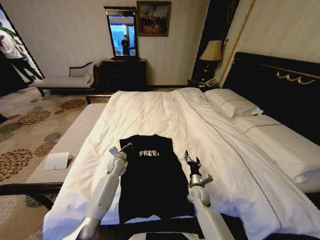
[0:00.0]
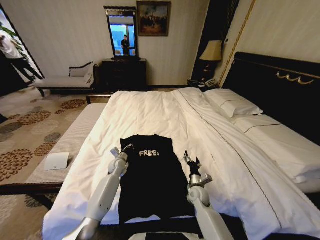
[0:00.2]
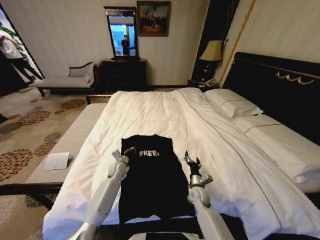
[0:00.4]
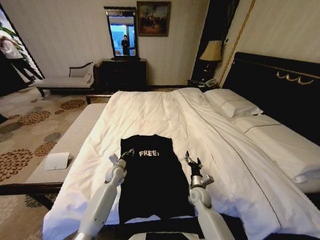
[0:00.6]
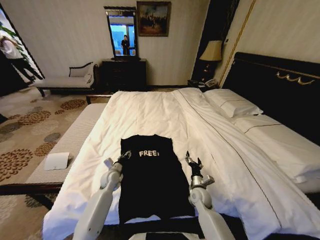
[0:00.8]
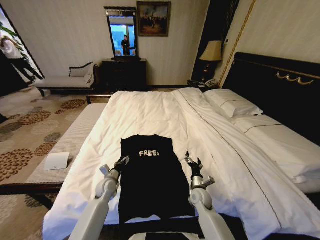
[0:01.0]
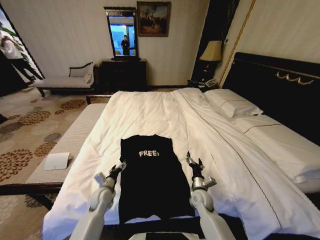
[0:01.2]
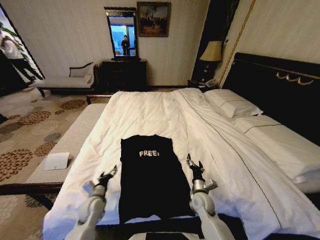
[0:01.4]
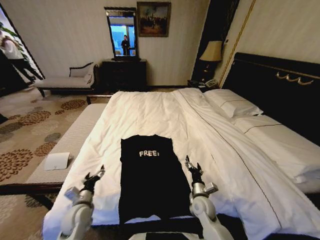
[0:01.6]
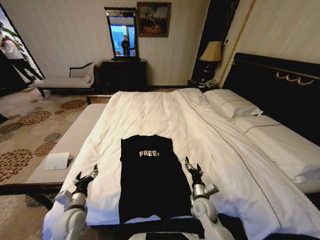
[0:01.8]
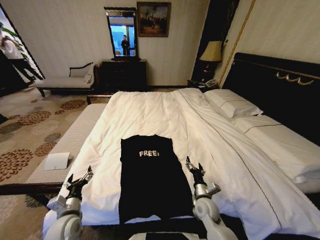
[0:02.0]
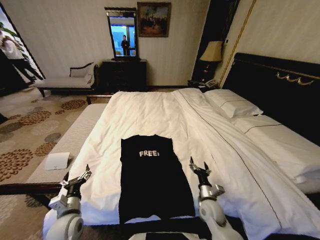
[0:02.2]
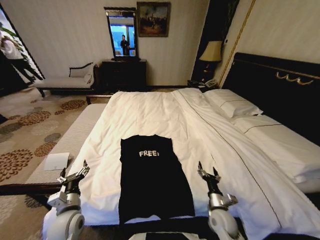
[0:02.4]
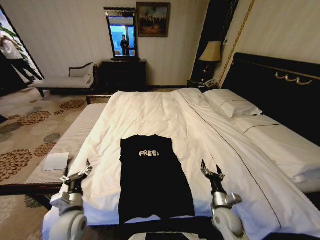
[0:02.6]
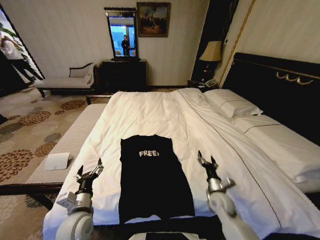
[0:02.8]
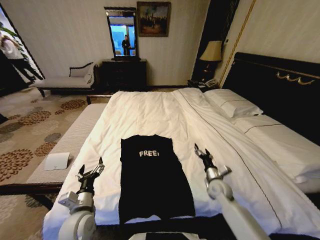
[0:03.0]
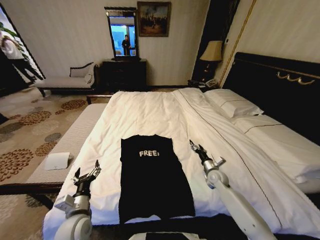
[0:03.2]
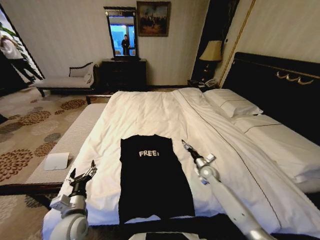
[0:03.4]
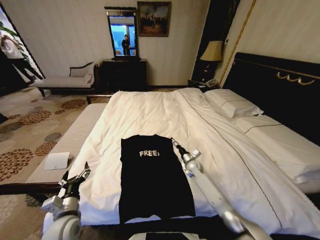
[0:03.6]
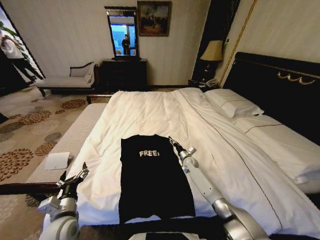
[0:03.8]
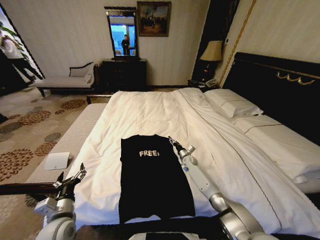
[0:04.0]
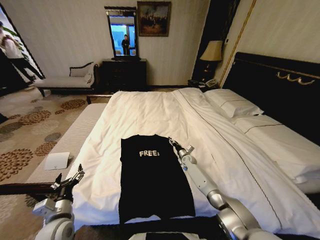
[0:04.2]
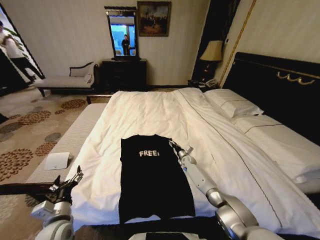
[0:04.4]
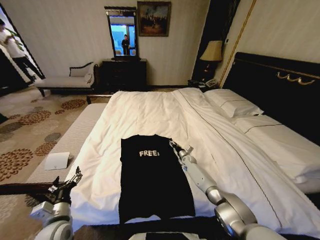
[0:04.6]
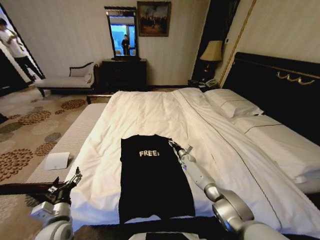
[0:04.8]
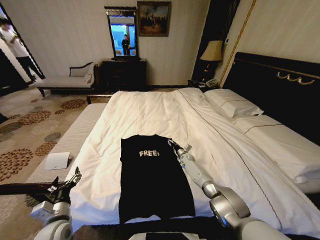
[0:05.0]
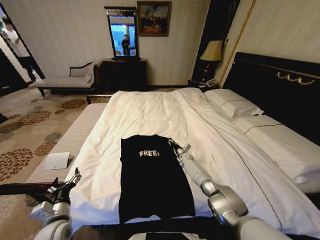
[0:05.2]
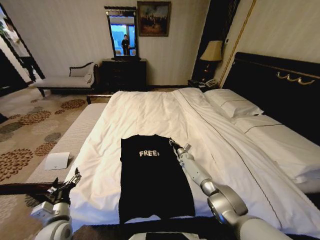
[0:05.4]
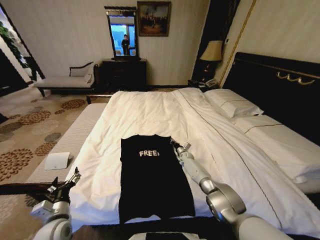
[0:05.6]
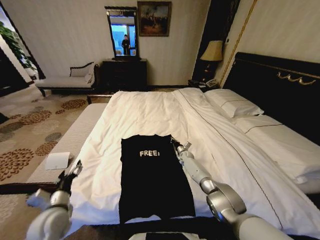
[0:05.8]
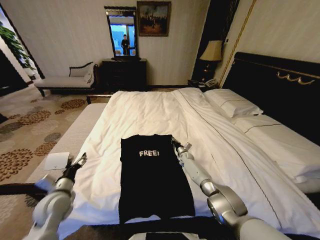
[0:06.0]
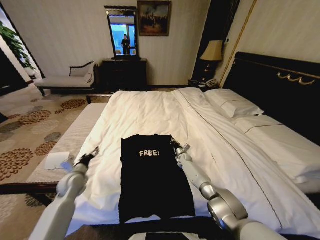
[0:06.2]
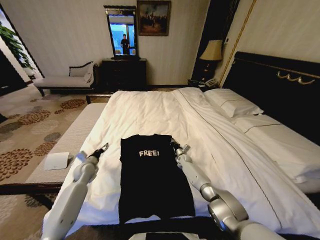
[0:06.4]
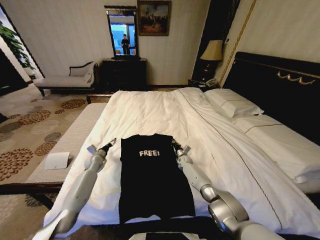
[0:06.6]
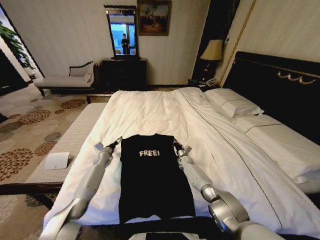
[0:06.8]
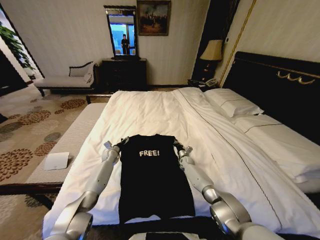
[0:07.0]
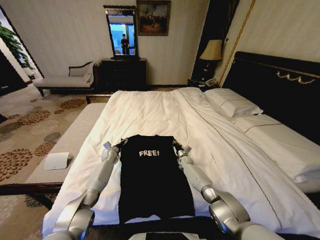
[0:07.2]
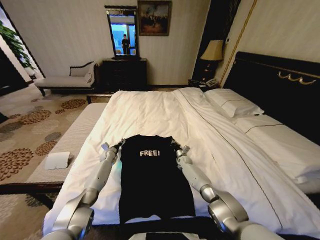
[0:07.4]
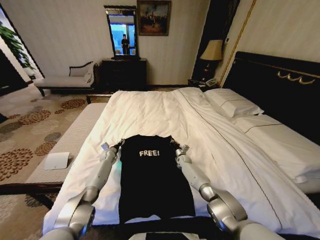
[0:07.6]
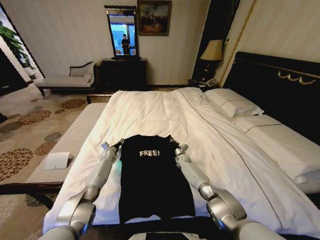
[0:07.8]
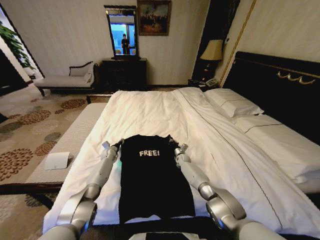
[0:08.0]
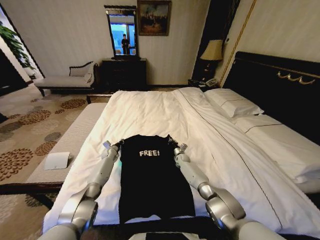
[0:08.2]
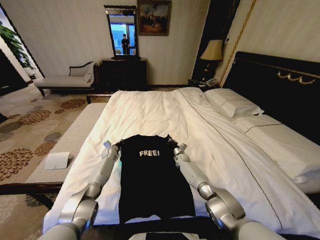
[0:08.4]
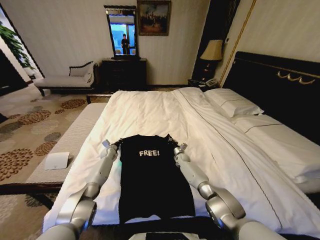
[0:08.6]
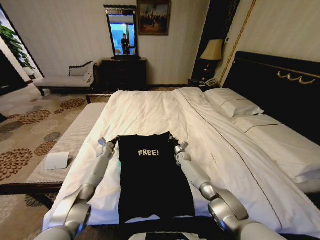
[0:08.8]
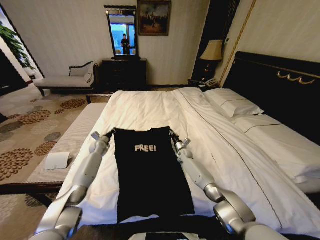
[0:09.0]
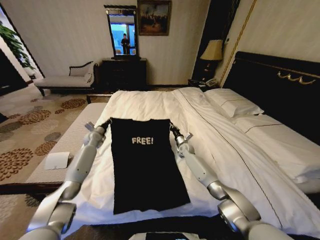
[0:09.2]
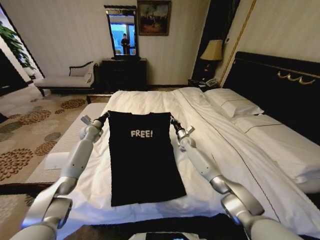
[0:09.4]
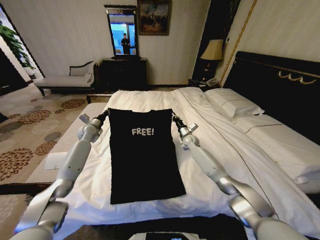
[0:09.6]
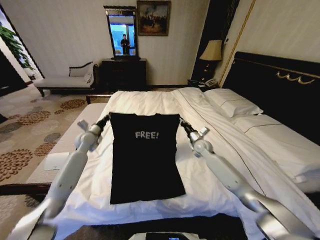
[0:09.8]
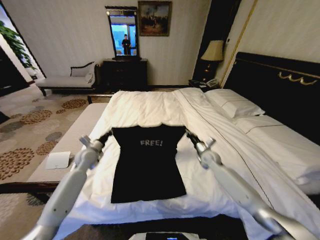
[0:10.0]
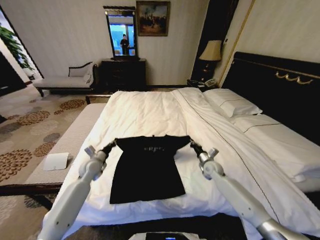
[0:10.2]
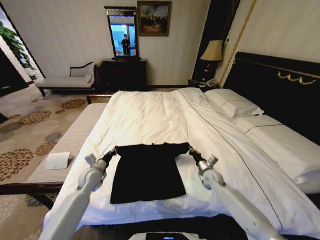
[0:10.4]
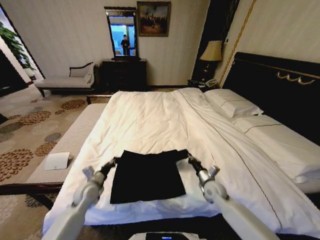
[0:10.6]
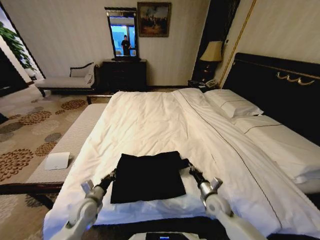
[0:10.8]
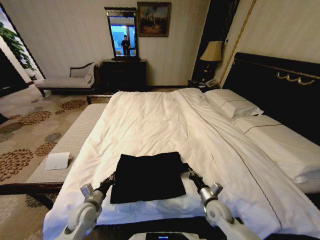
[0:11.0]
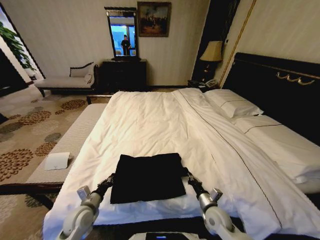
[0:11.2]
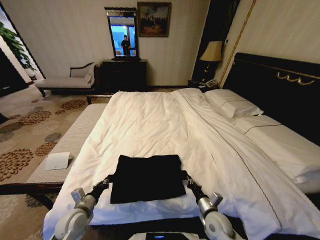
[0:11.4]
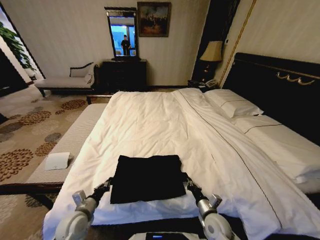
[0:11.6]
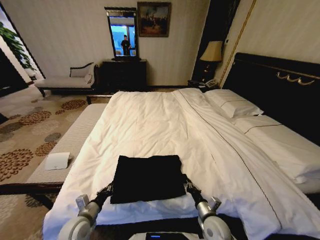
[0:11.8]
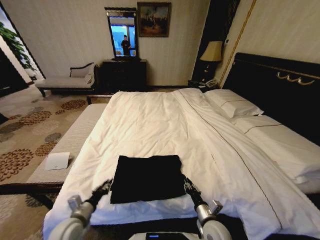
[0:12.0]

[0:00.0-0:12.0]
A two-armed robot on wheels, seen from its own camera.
Task of the whole recording: Fold the clothes on the bed.
0:00.0 to 0:01.6: The right gripper shifts approximately 5 cm backward. Meanwhile the left gripper travels backward by approximately 25 cm, and opens.
0:01.6 to 0:03.0: The right gripper moves to the right and forward, about 15 cm; the left gripper travels upward by approximately 5 cm.
0:03.0 to 0:04.4: The right gripper is displaced forward and downward by approximately 20 cm, and closes up, while the left gripper heads to the left, covering about 5 cm.
0:04.4 to 0:06.0: The right gripper closes, while the left gripper shifts roughly 10 cm forward.
0:06.0 to 0:07.6: The left gripper goes roughly 35 cm forward and downward.
0:07.6 to 0:09.0: The left gripper travels upward by roughly 10 cm, and closes up. Meanwhile the right gripper shifts some 5 cm upward.
0:09.0 to 0:10.4: The left gripper travels backward by roughly 20 cm, while the right gripper shifts approximately 20 cm backward and to the right.
0:10.4 to 0:12.0: Both grippers move backward, about 20 cm.

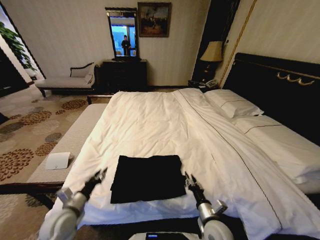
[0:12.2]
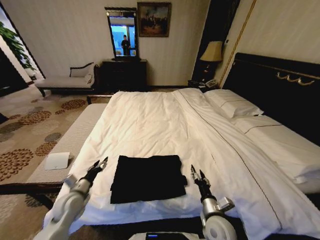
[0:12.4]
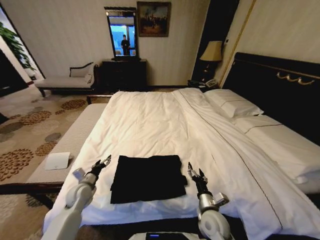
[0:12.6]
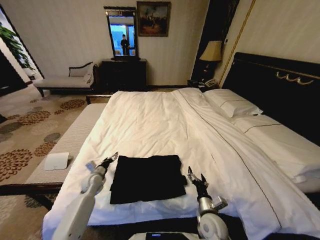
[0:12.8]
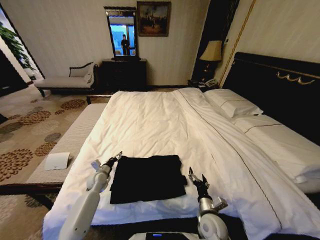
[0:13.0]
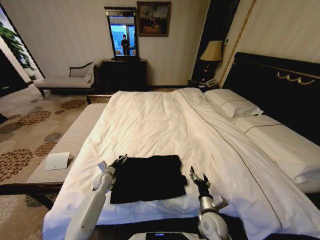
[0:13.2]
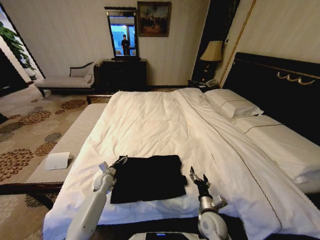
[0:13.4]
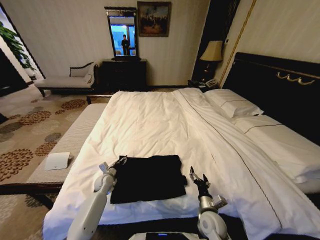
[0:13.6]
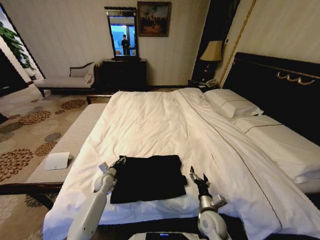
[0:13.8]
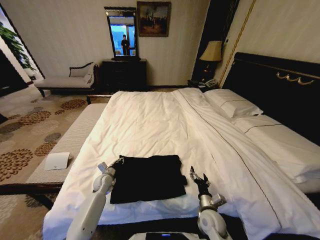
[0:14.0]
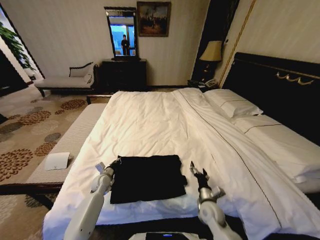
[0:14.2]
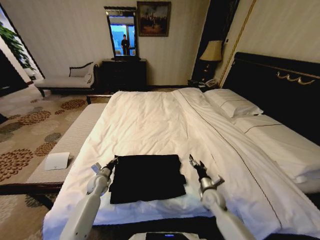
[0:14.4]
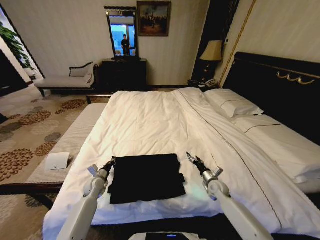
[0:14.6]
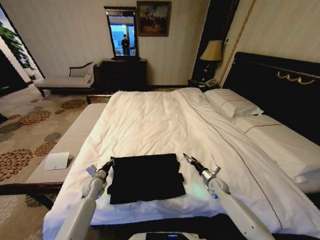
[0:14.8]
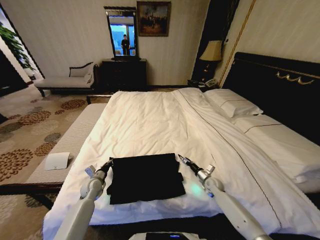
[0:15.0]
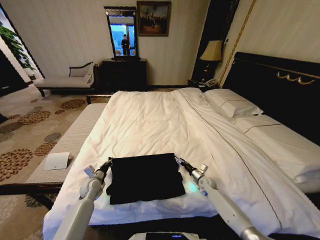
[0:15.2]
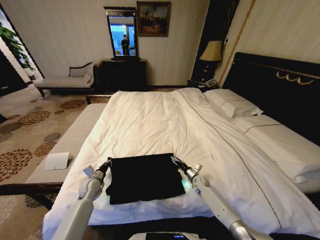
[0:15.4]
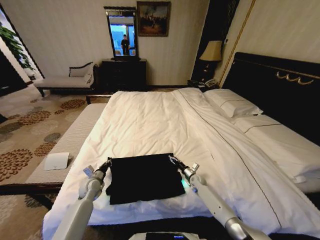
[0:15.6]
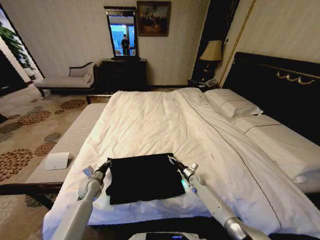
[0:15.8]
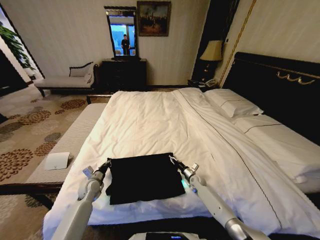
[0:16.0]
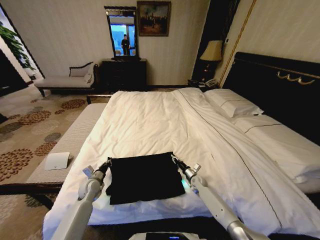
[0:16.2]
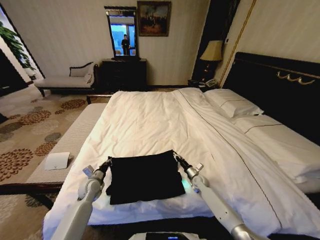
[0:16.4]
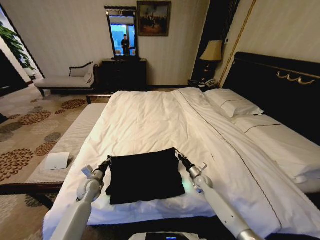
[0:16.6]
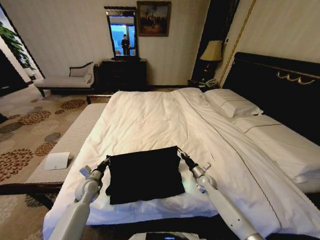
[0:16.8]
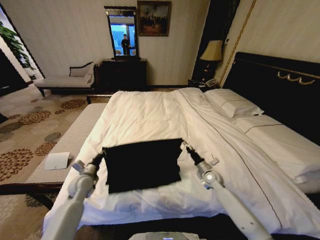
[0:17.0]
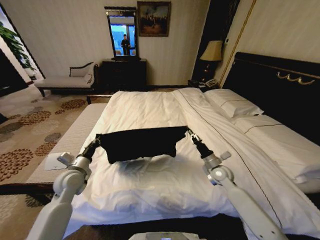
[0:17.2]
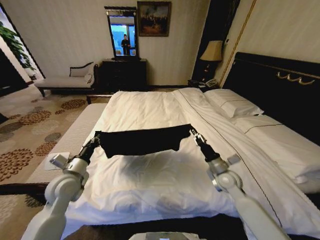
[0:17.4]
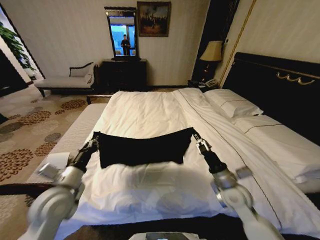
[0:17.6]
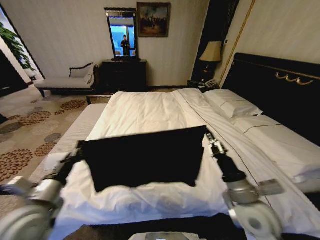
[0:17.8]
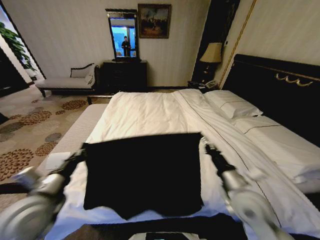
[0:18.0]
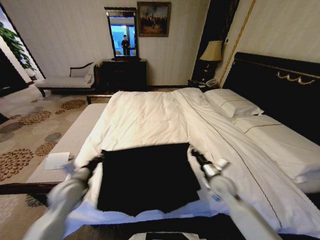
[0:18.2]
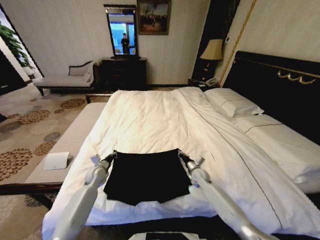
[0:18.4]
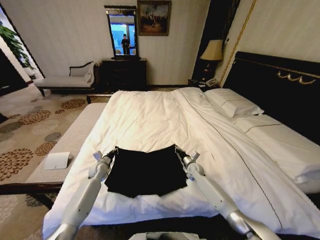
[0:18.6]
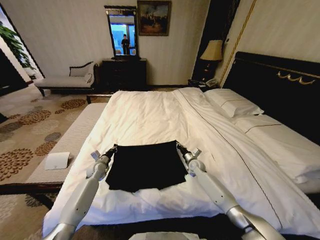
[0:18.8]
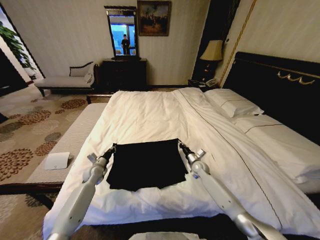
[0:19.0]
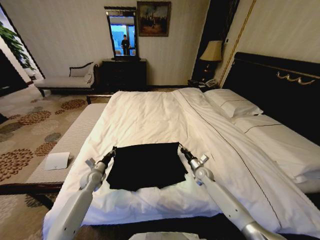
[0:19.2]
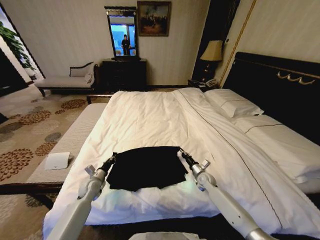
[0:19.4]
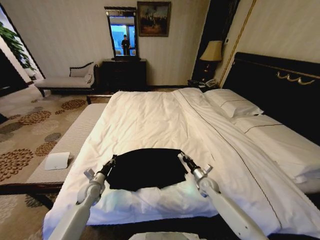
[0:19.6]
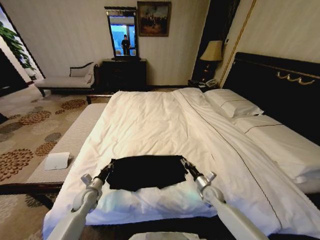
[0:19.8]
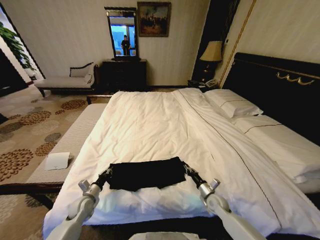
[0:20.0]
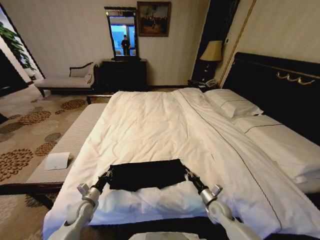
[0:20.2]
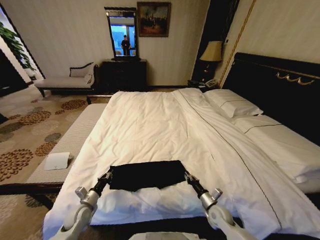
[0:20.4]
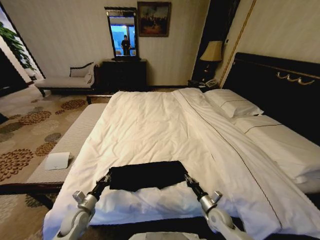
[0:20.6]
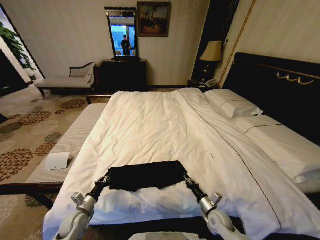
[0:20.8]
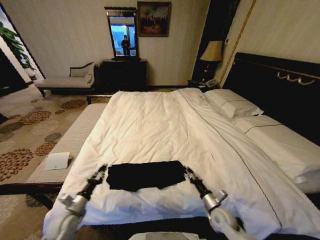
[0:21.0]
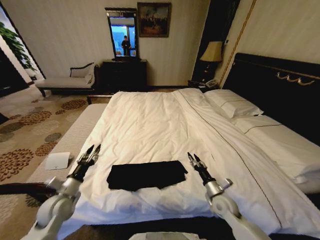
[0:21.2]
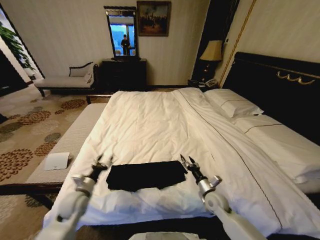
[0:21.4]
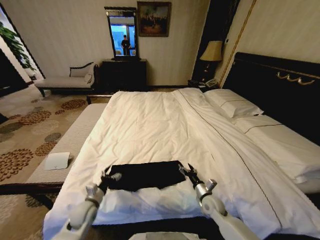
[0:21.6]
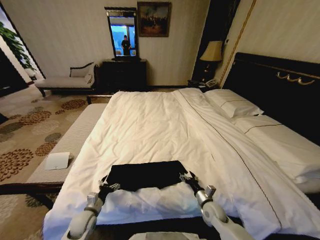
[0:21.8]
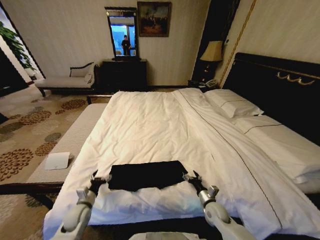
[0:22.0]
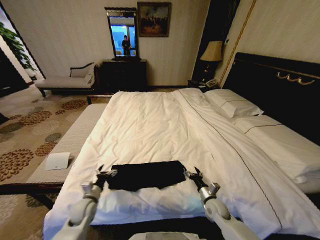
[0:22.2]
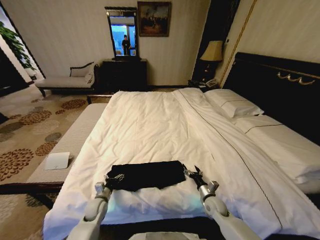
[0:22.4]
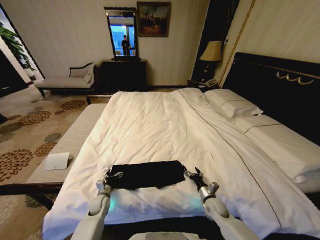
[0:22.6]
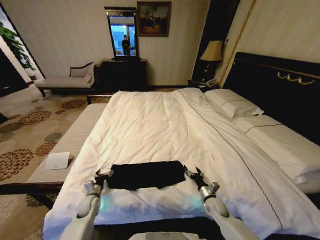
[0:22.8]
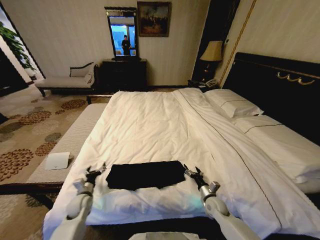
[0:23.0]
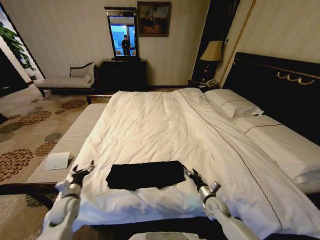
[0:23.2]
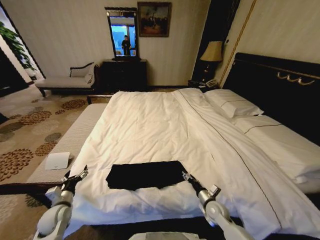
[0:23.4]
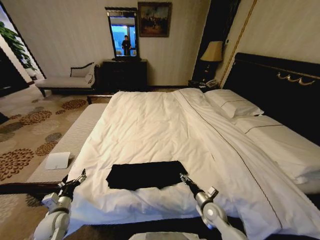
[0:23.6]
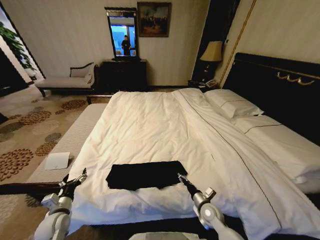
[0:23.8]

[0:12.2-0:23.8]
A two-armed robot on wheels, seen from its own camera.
Task of the whole recording: Fold the clothes on the bed.
0:12.2 to 0:13.6: The right gripper opens up. The left gripper shifts some 25 cm forward and downward.
0:13.6 to 0:15.0: The left gripper moves roughly 5 cm, and closes its fingers. The right gripper goes about 20 cm forward and to the right.
0:15.0 to 0:16.6: The right gripper moves to the left, some 5 cm, and closes its fingers.
0:16.6 to 0:18.0: Both grippers travel together upward and backward, some 30 cm.
0:18.0 to 0:19.4: The two grippers go some 30 cm downward and forward.
0:19.4 to 0:21.0: Both grippers move backward, roughly 15 cm.
0:21.0 to 0:22.4: The left gripper is displaced downward, to the right and forward by roughly 15 cm, and opens; the right gripper shifts about 5 cm forward, and opens up.
0:22.4 to 0:23.8: The right gripper moves approximately 5 cm; the left gripper travels to the left, upward and backward by roughly 15 cm.
